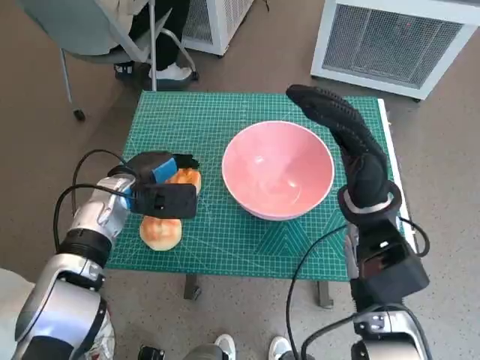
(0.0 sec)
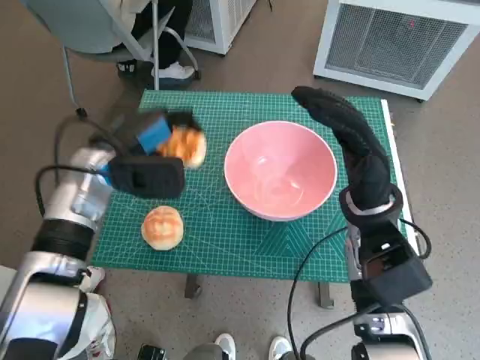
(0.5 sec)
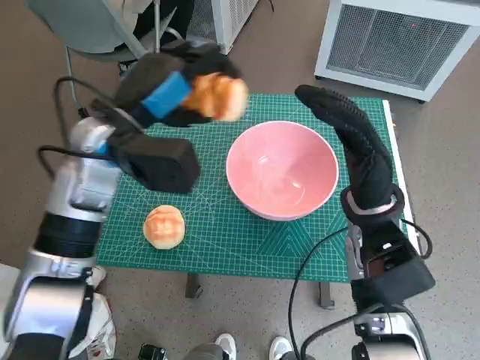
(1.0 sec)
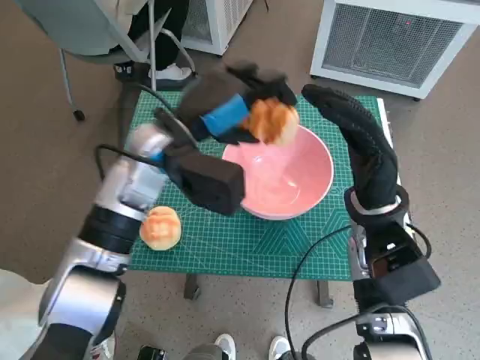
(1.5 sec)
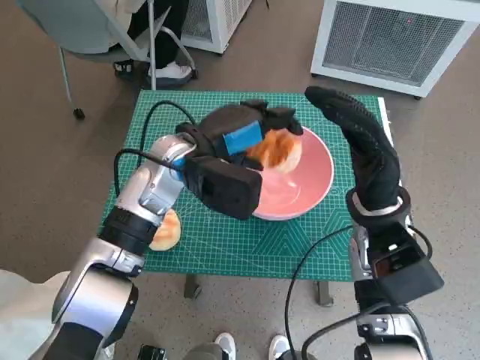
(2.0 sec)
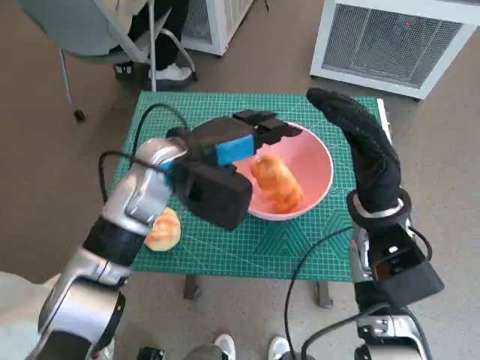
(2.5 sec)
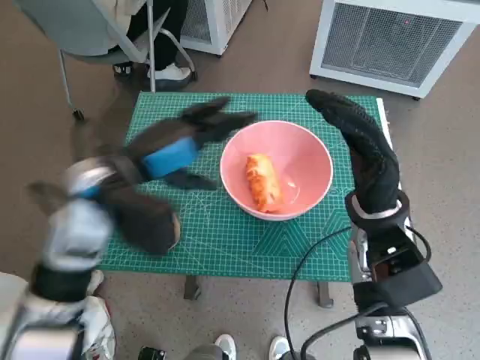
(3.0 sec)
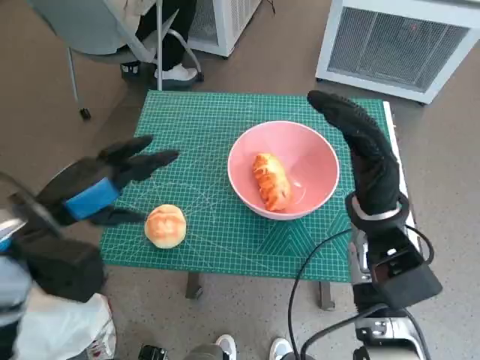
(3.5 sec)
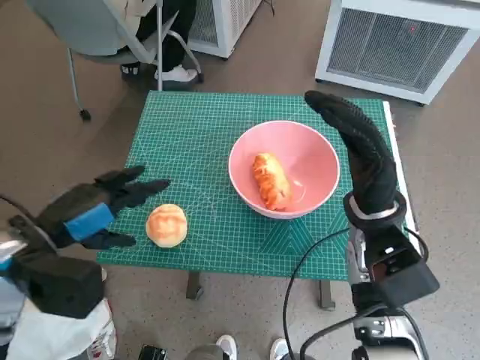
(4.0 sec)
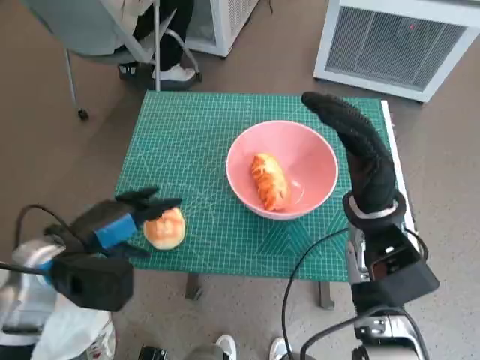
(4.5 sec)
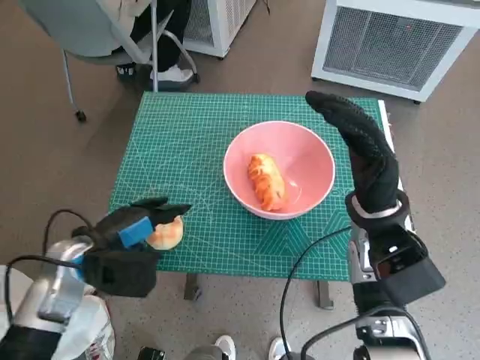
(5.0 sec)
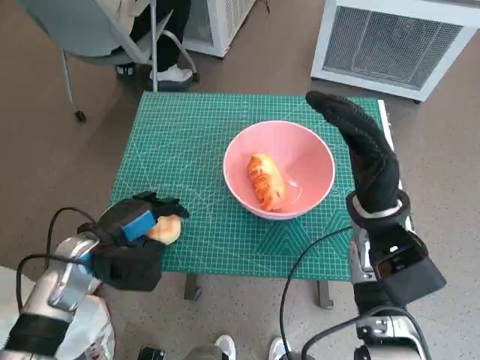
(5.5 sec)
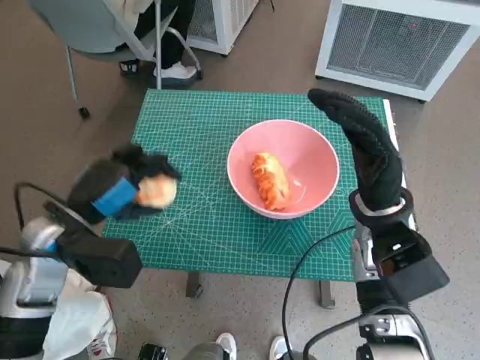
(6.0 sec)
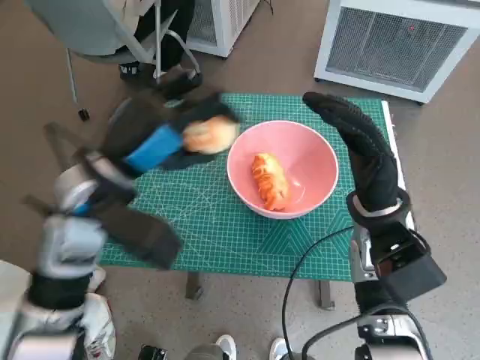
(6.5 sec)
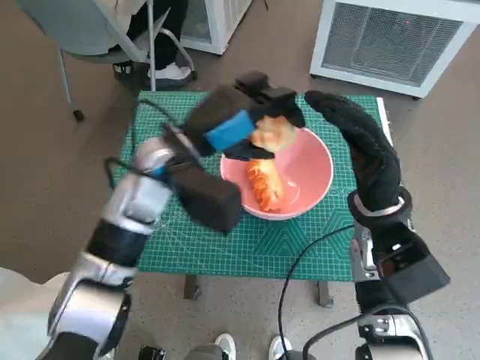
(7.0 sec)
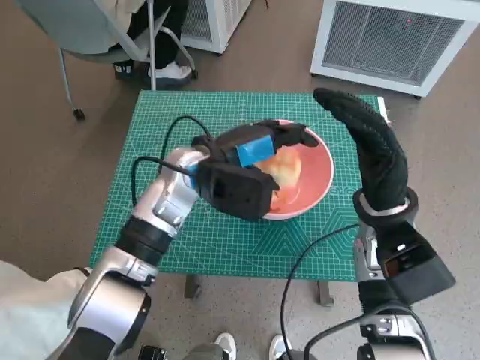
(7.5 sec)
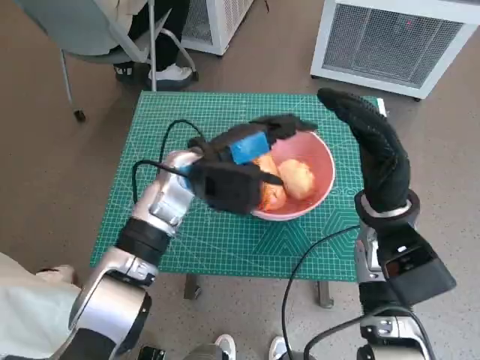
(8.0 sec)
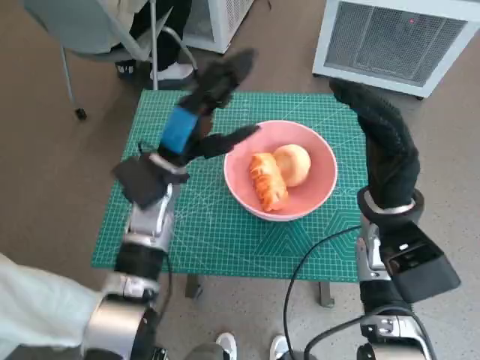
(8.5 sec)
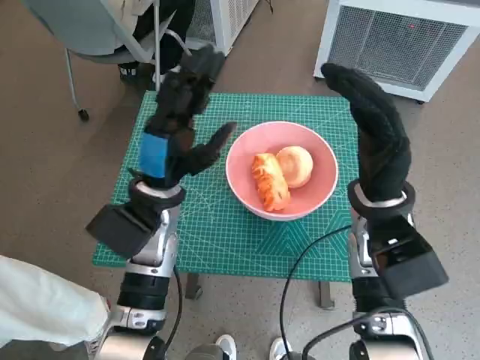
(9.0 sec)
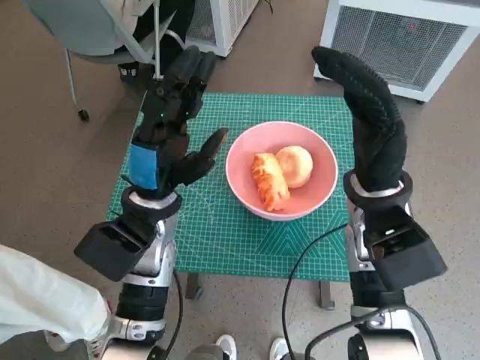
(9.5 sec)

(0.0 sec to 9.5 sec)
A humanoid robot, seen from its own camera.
Task of the whole recording: Push the bowl to the center of the table and put the bread into the bowl.
Step, 0.0 sec - 2.5 sec: Place the long bread in pink bowl with left hand.
Step, 3.0 sec - 5.0 sec: Grasp the round bread with left hand.
Step, 5.5 sec - 7.5 sec: Place the round bread in pink bowl with left hand.
0.0 sec - 2.0 sec: The left hand moves to the right and upward, about 15 cm.
2.0 sec - 4.0 sec: The left hand travels to the left and backward by approximately 20 cm.
4.0 sec - 5.5 sec: The left hand travels downward by about 10 cm.
5.5 sec - 7.5 sec: The left hand moves to the right, forward and upward, some 20 cm.
7.5 sec - 9.5 sec: The left hand travels backward by roughly 5 cm.

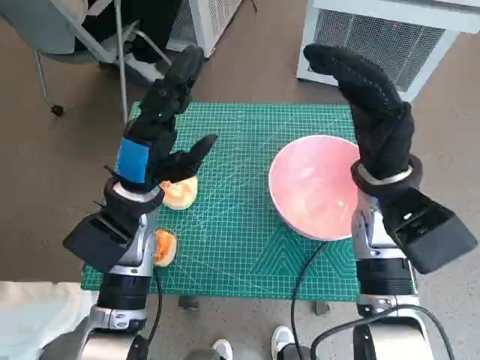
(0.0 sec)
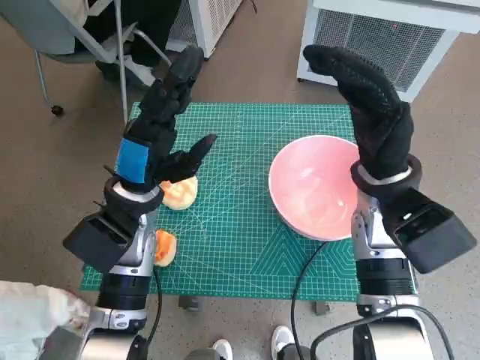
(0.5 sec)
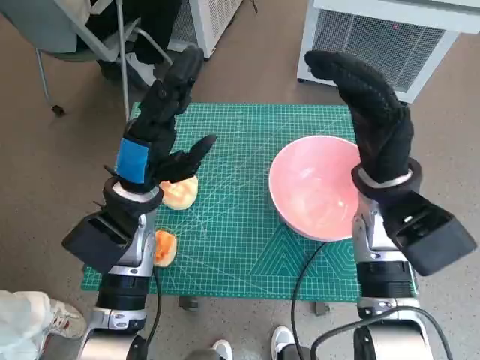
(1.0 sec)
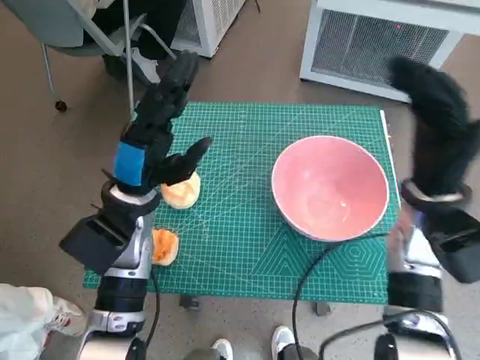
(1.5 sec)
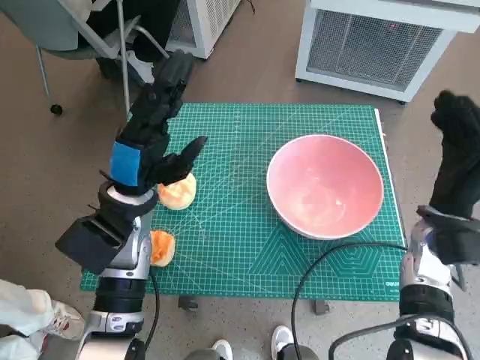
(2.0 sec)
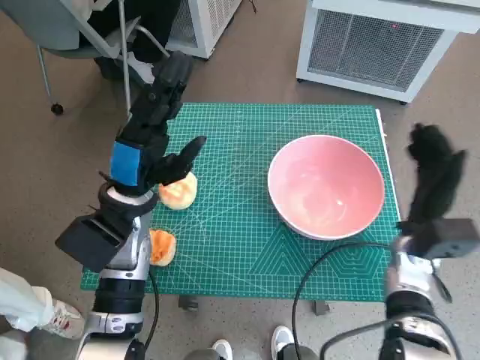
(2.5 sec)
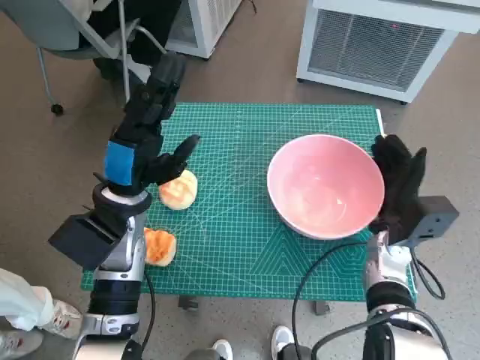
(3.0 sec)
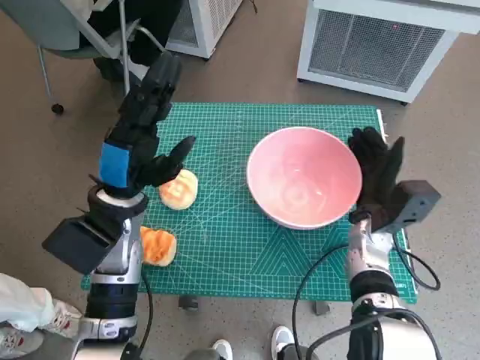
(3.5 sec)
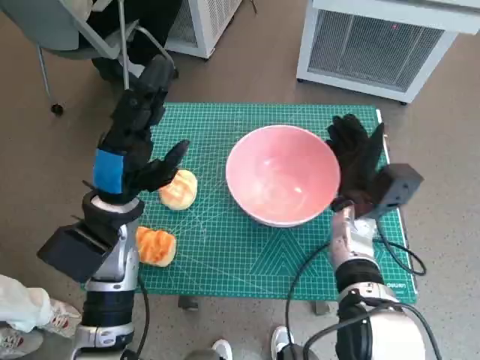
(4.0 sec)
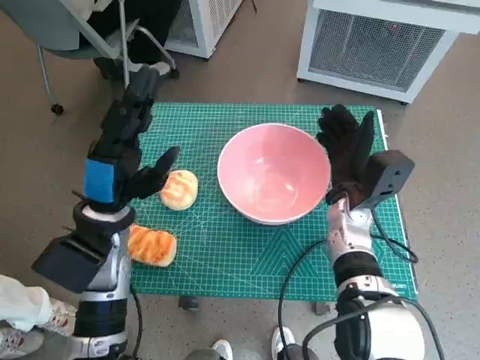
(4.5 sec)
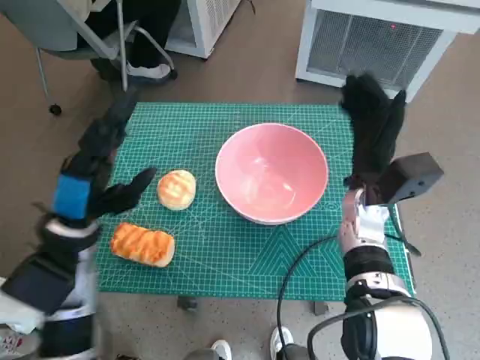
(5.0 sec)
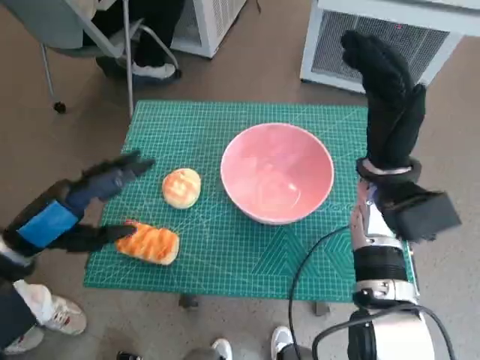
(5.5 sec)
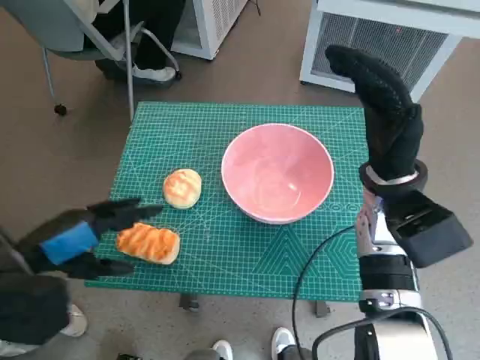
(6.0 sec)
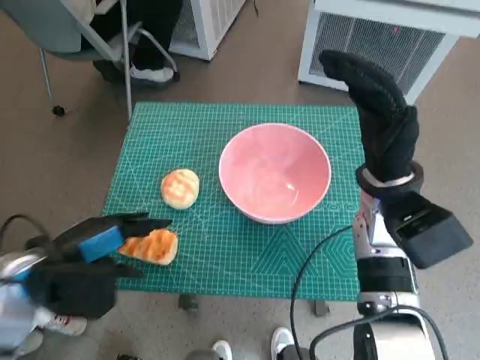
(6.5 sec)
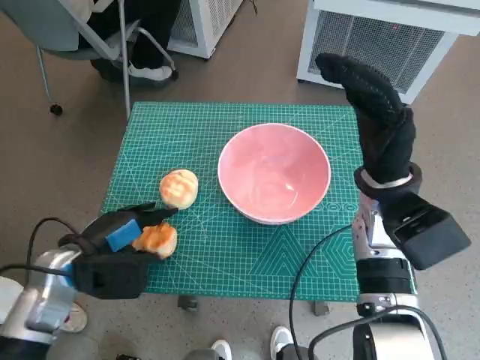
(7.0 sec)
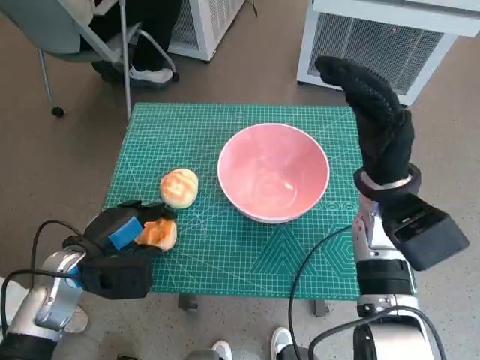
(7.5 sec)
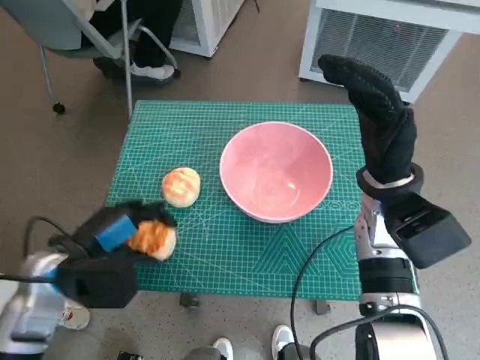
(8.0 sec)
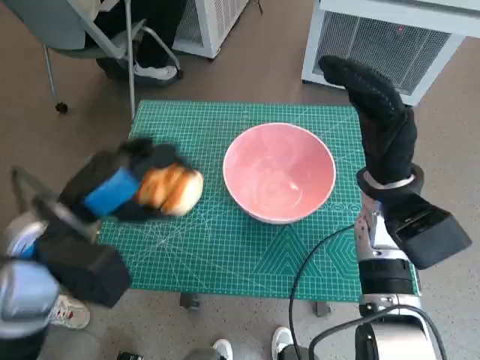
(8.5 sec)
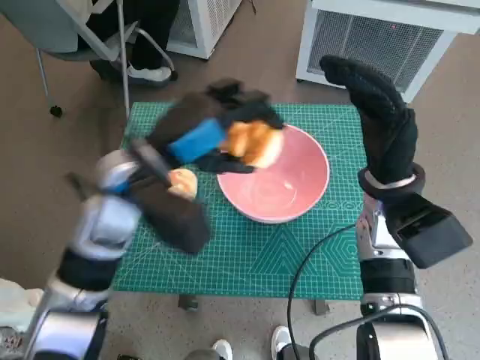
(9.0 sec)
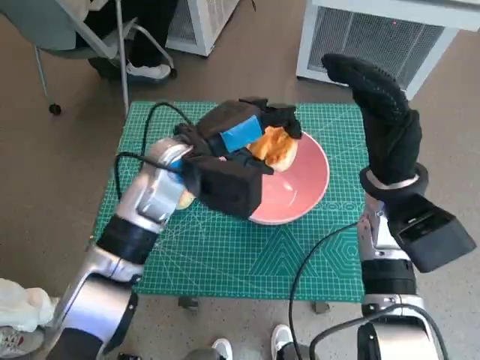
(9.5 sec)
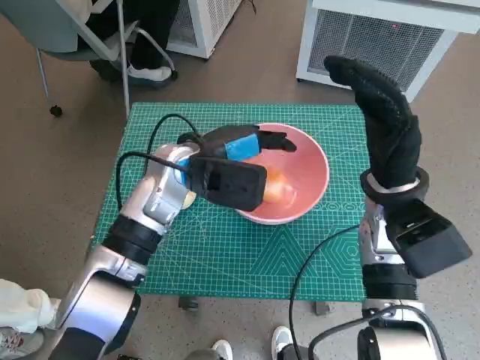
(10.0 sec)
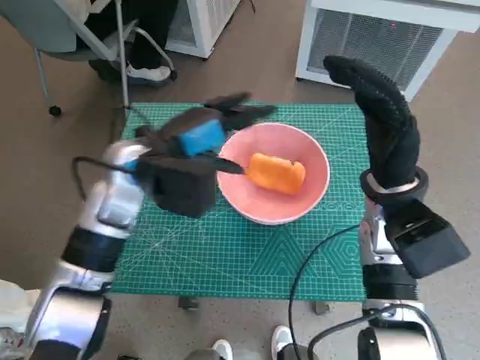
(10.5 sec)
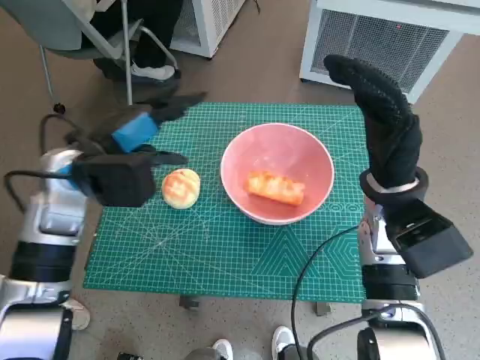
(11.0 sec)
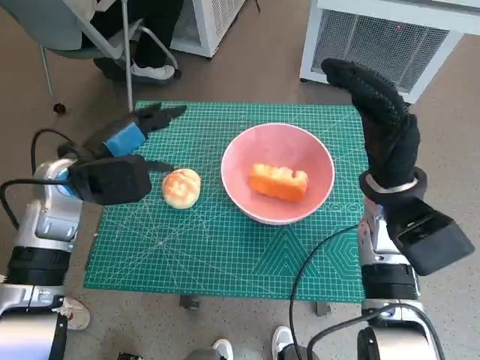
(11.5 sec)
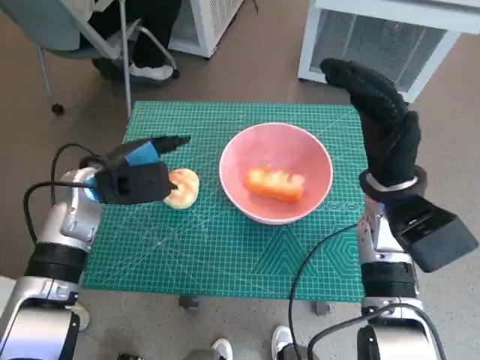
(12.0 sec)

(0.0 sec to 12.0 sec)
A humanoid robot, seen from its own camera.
Task of the whole recording: Push the bowl to the center of the table and put the bread into the bowl.
Step, 0.0 sec - 4.5 sec: Move the pink bowl to the center of table with right hand.
Step, 5.0 sec - 7.5 sec: Grasp the long bread with left hand.
Step, 8.0 sec - 10.0 sec: Place the long bread in pink bowl with left hand.
2.0 sec - 4.0 sec: The right hand moves to the left, about 10 cm.
4.0 sec - 6.0 sec: The right hand shifts about 10 cm upward. Meanwhile the left hand heads to the left and backward, covering approximately 15 cm.
6.0 sec - 8.0 sec: The left hand goes approximately 10 cm downward.
8.0 sec - 10.0 sec: The left hand heads to the right, forward and upward, covering roughly 20 cm.
10.0 sec - 12.0 sec: The left hand moves to the left, about 15 cm.

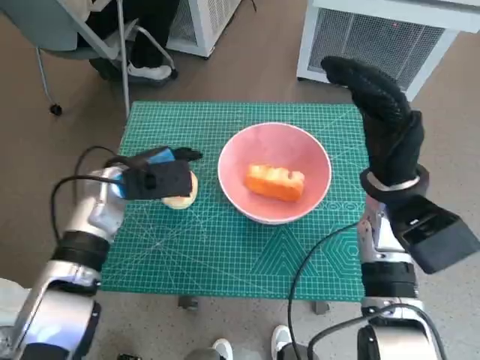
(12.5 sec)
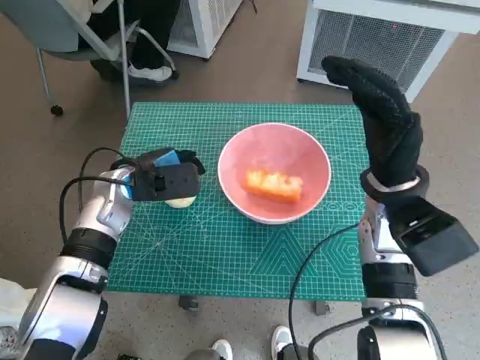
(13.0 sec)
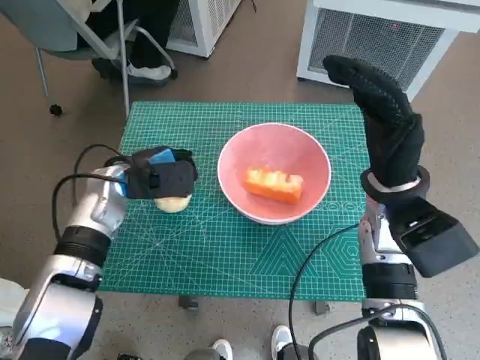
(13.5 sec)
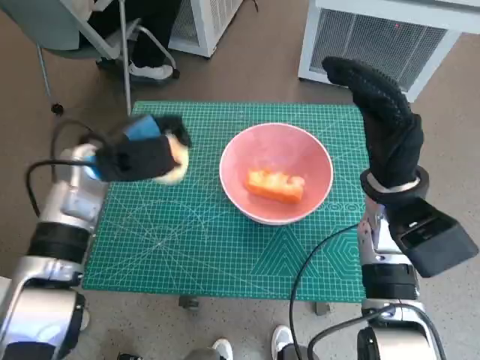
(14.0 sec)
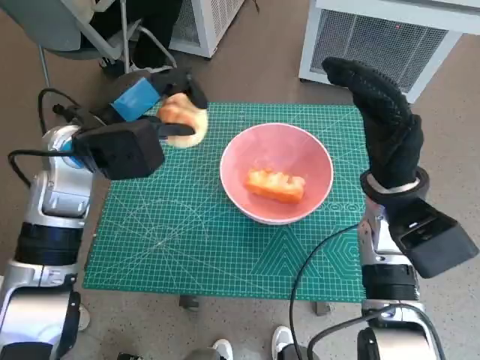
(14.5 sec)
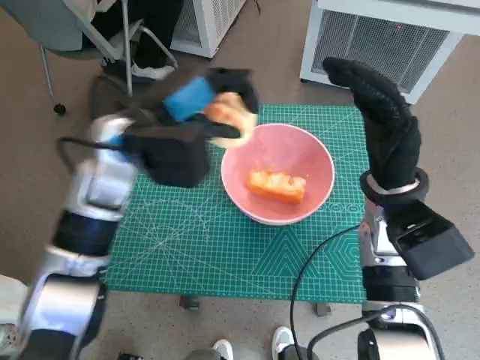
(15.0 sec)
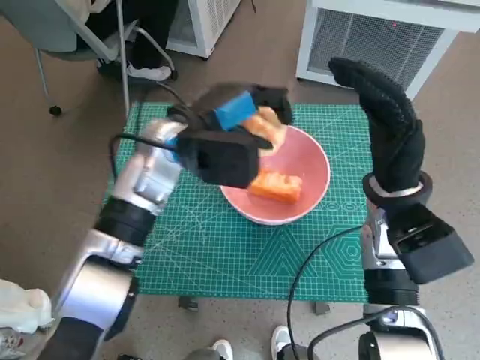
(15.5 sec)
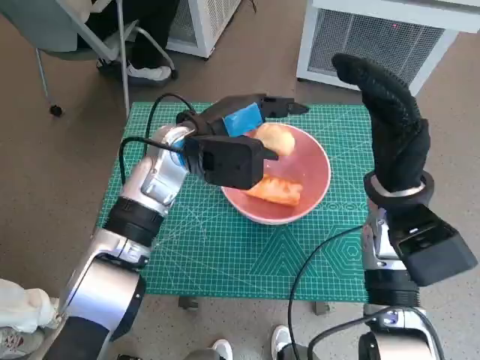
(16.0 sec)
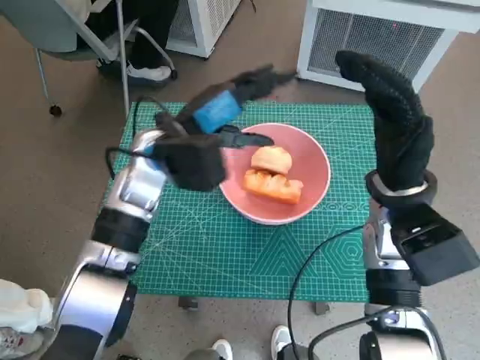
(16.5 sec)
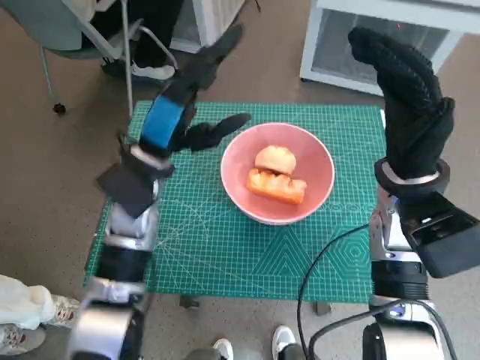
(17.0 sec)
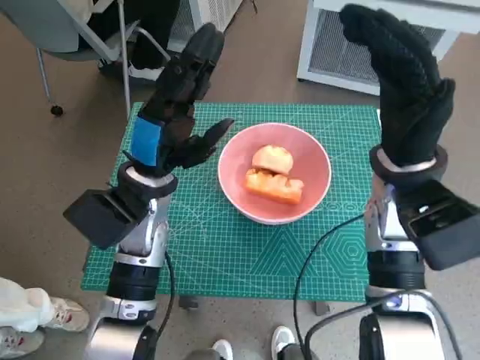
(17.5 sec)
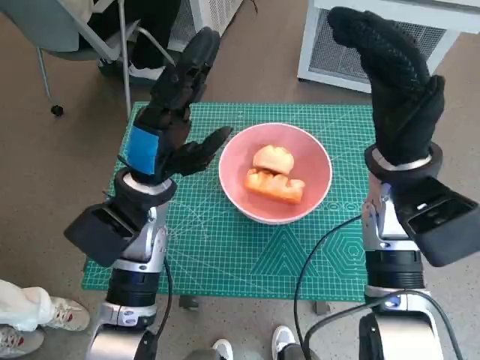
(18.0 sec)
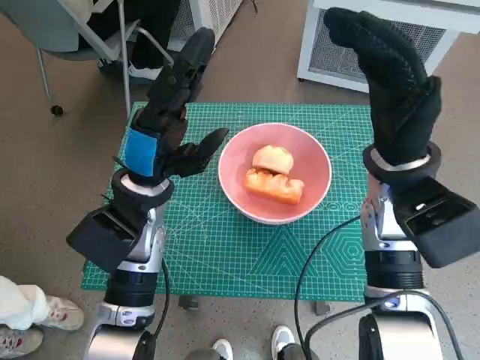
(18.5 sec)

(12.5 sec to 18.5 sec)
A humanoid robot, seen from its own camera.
Task of the whole recording: Push the bowl to the center of the table and put the bread into the bowl.
Step, 13.5 sec - 16.0 sec: Place the round bread in pink bowl with left hand.
12.5 sec - 14.5 sec: The left hand moves upward, some 10 cm.
14.5 sec - 16.5 sec: The left hand shifts some 10 cm to the right.
16.5 sec - 18.5 sec: The left hand is displaced backward by about 5 cm.
